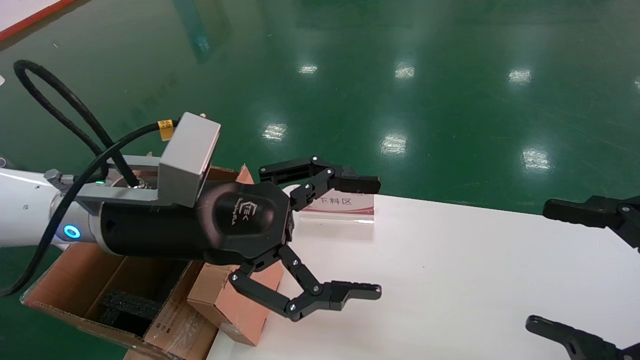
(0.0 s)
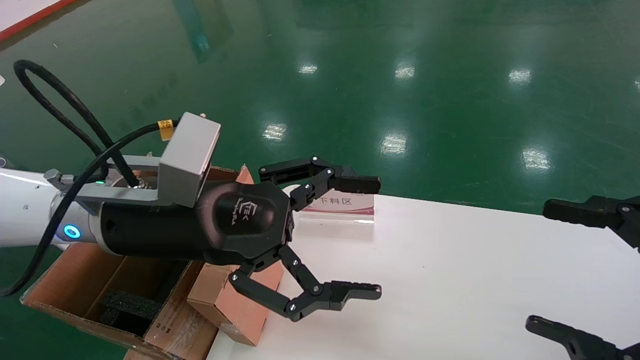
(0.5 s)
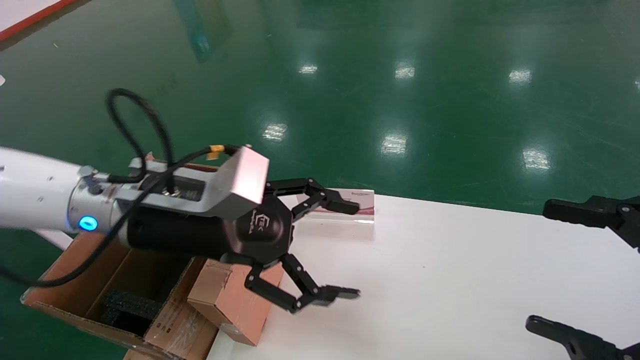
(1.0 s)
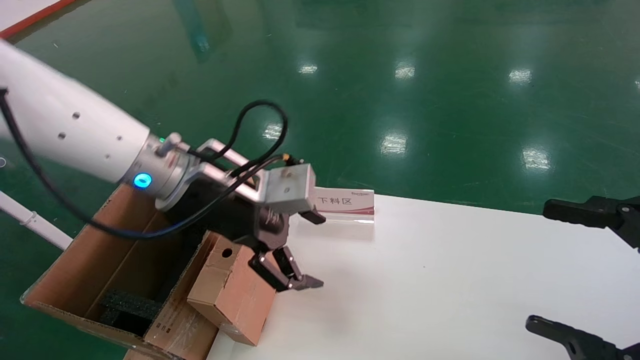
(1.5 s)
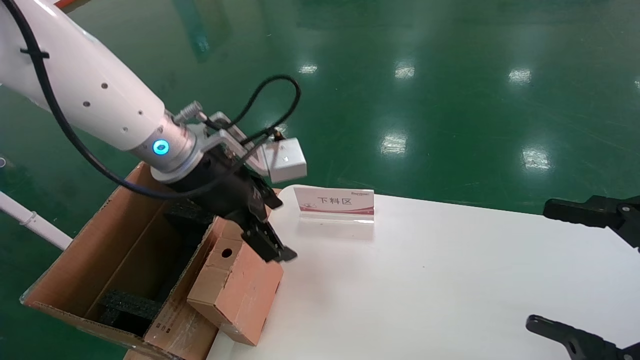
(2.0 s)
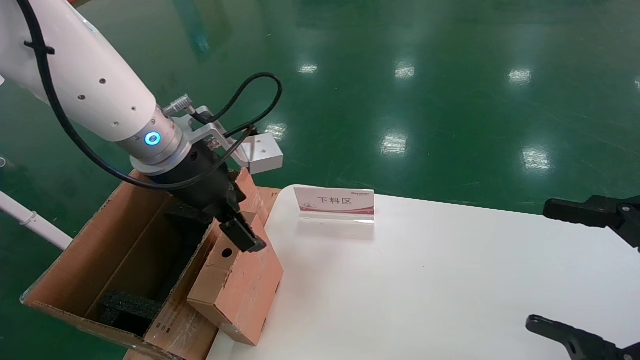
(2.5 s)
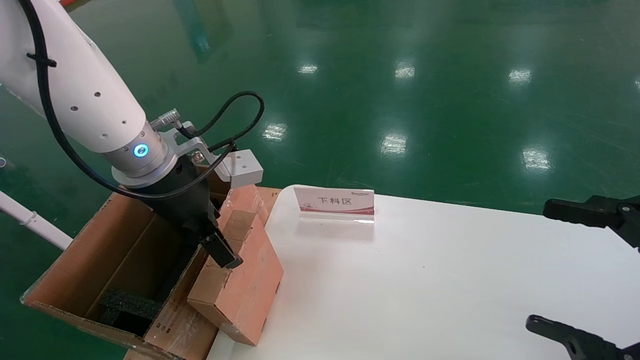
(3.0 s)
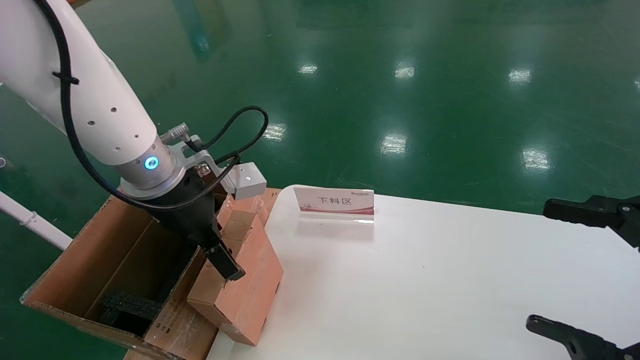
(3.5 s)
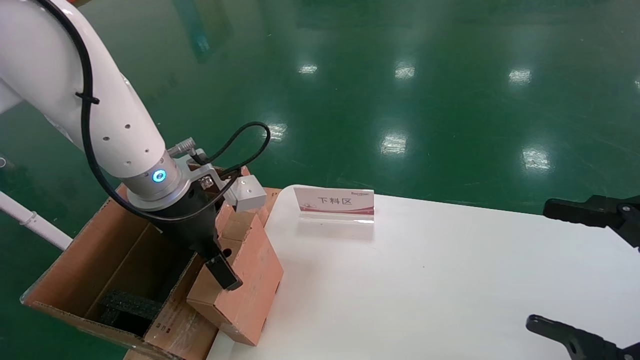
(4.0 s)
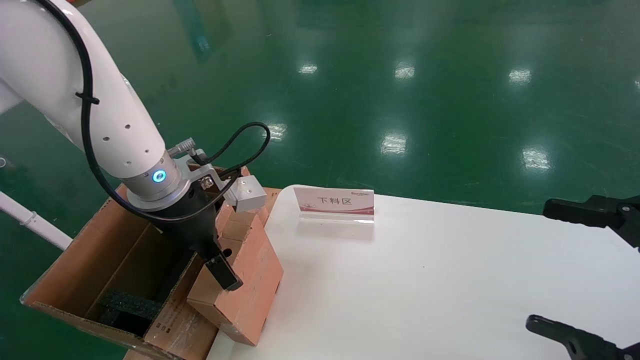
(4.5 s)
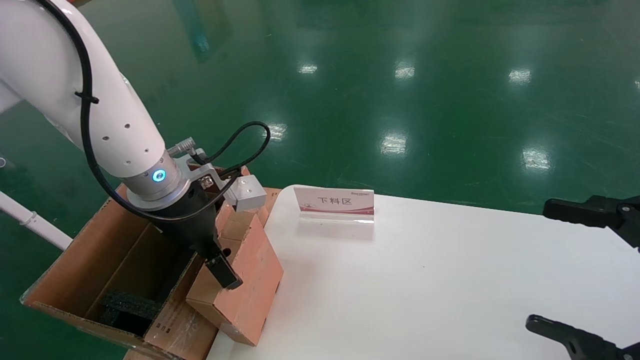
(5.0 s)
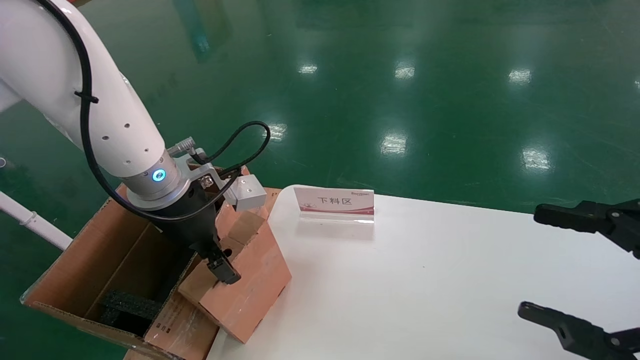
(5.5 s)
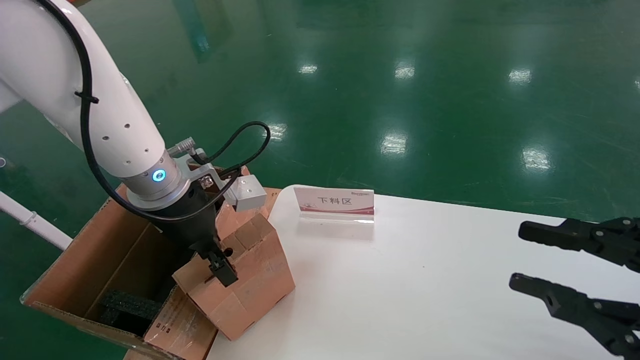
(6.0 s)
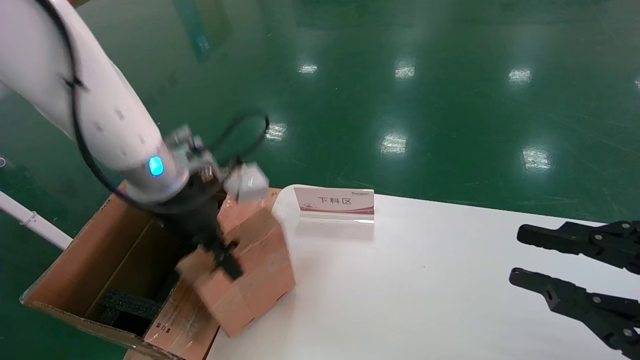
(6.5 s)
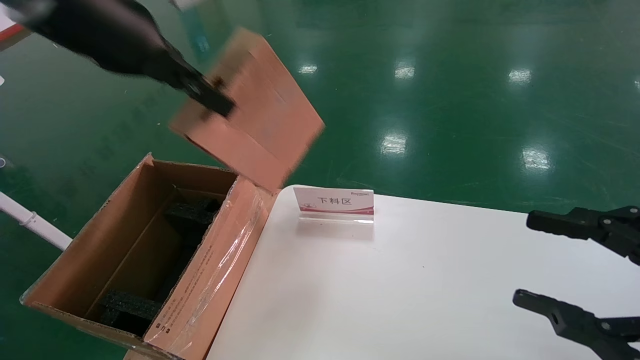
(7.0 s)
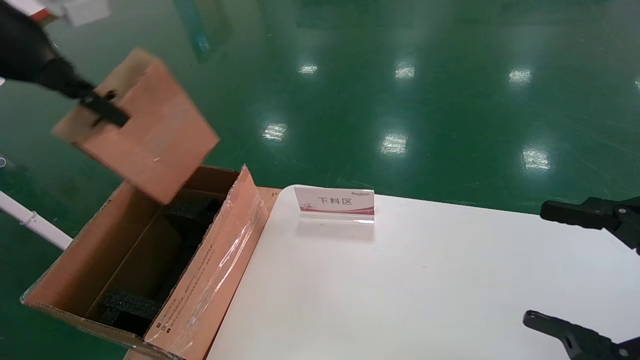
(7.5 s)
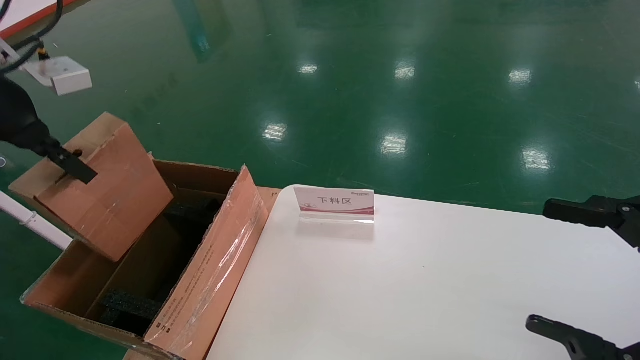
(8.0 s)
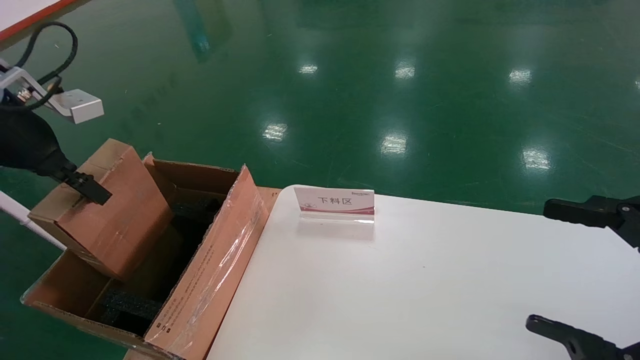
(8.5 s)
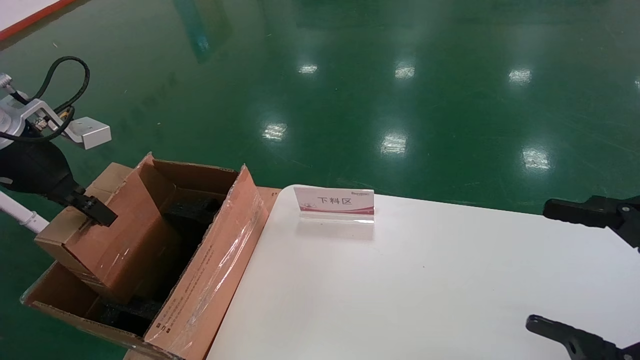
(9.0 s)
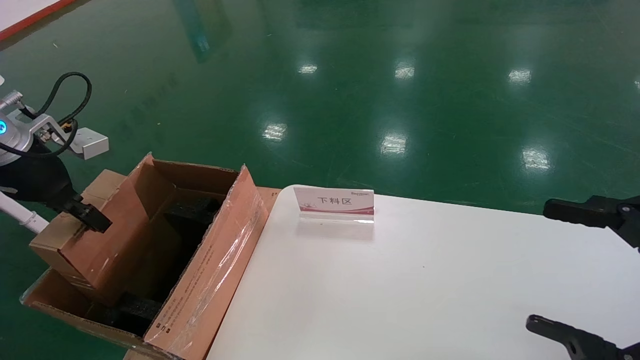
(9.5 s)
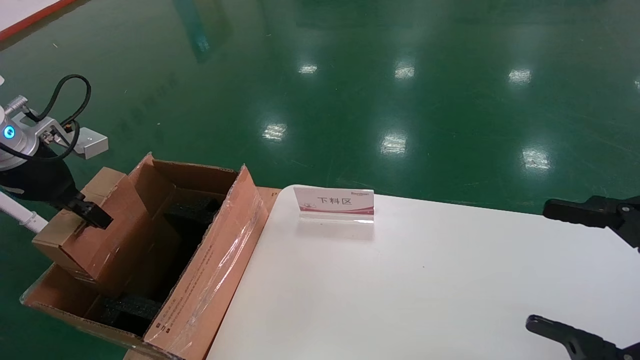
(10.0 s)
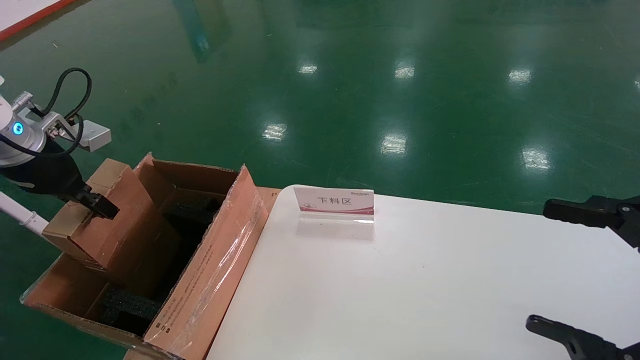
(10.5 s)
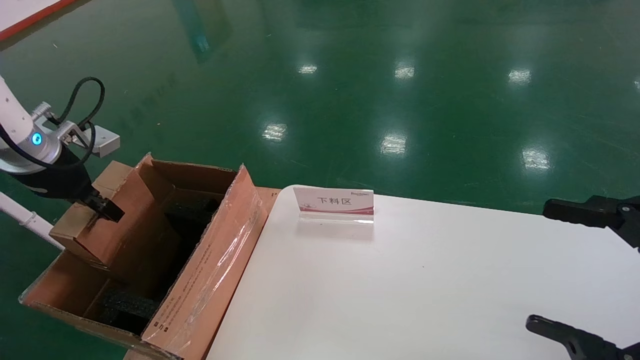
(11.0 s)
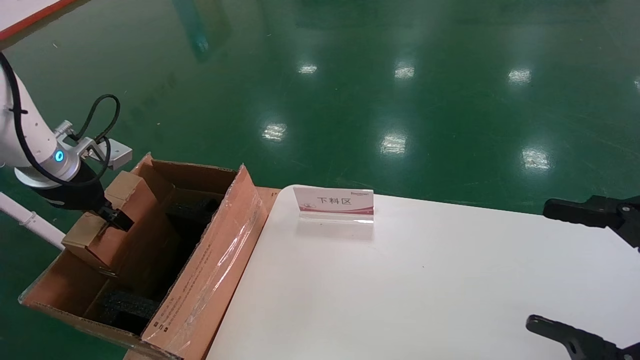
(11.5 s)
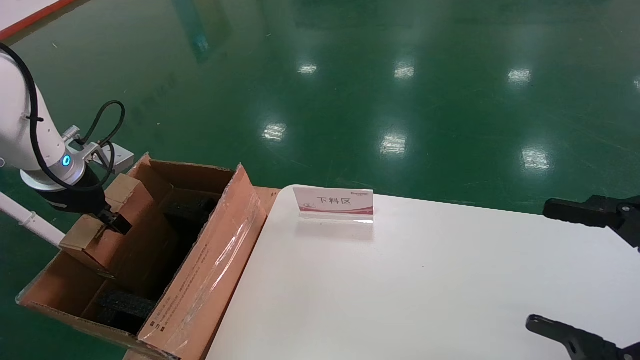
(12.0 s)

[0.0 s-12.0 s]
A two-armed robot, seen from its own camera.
Task of the whole recording: pick up the small cardboard box and load it into the large cardboard box.
Step, 1.5 to 5.5 s: Pick up the mouse and power cord box.
0.0 to 2.0 s: The left gripper is displaced forward by roughly 10 cm.
4.0 to 6.0 s: The right gripper closes its fingers; the left gripper closes its fingers.
6.0 to 8.0 s: The right gripper opens; the left gripper heads to the left and upward, covering roughly 25 cm.
8.0 to 10.0 s: The left gripper travels downward by some 10 cm.
10.0 to 12.0 s: The left gripper ends up approximately 5 cm from where it was.

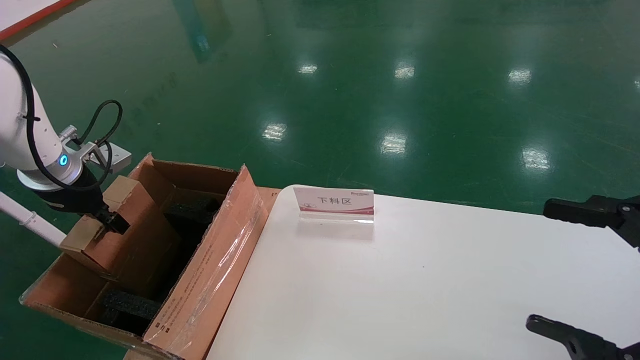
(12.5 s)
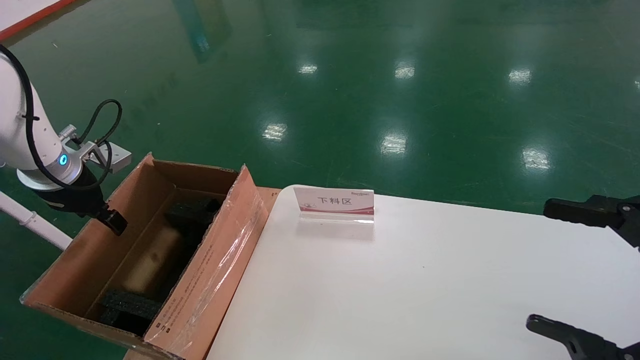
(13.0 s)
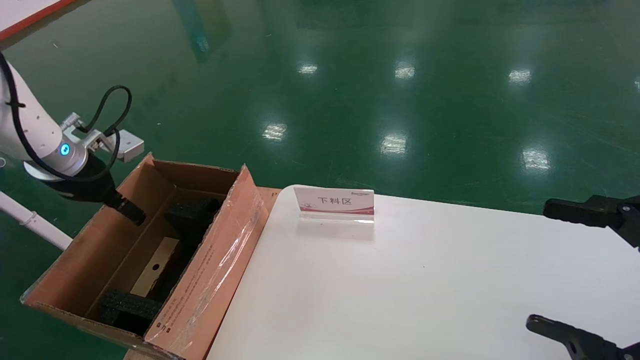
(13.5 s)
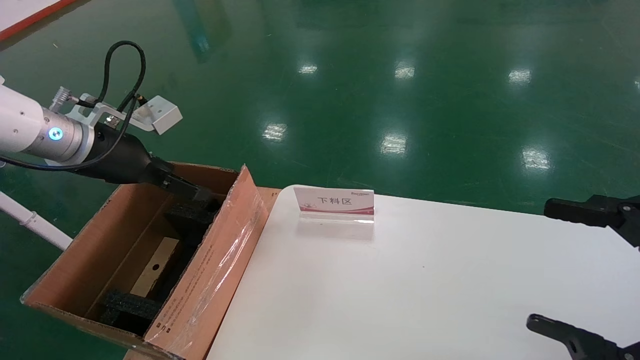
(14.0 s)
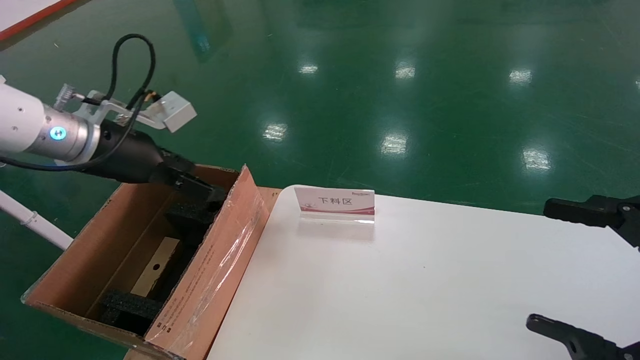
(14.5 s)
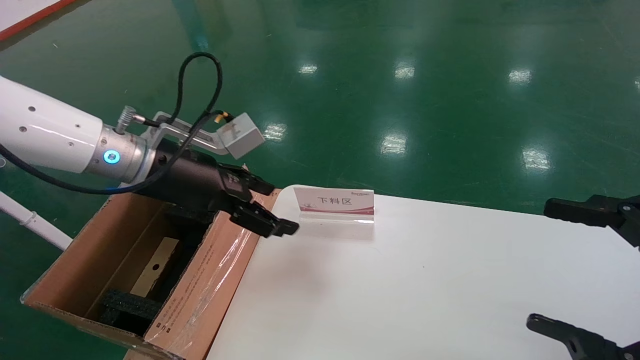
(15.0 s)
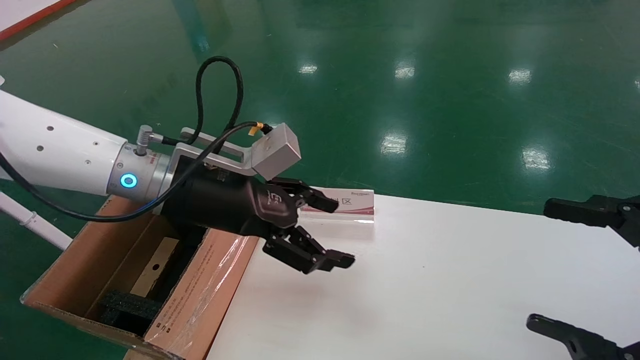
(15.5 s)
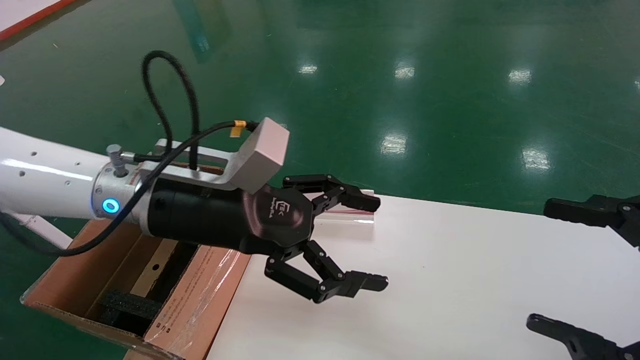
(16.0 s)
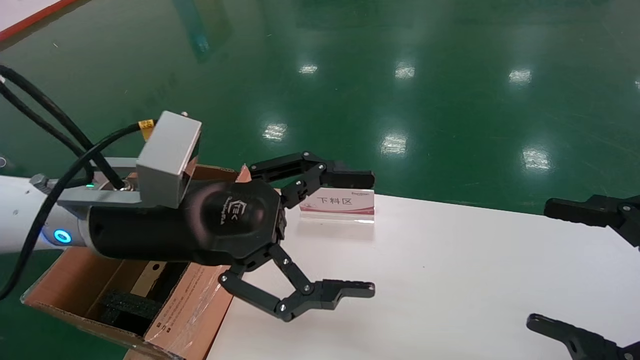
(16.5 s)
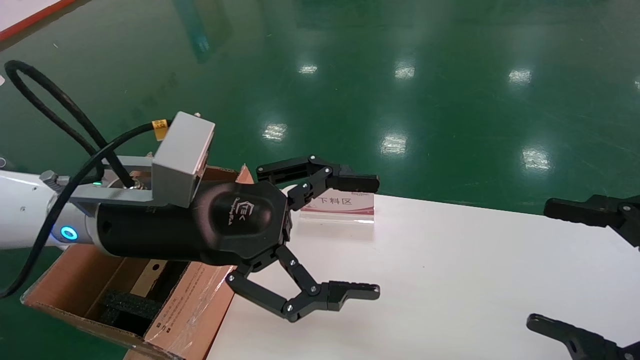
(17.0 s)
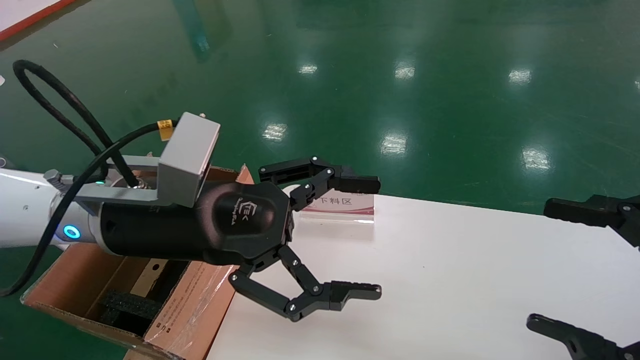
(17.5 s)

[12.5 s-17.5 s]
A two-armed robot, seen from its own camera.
Task of the whole recording: pick up the small cardboard box and load it into the large cardboard box.
12.5 to 15.0 s: The left gripper shifts some 20 cm to the right, and opens.
15.0 to 17.5 s: The left gripper goes about 10 cm backward and to the right.
